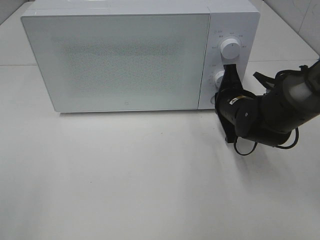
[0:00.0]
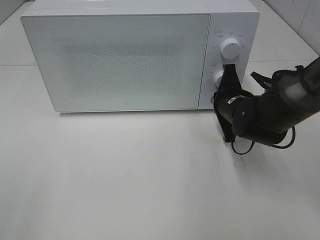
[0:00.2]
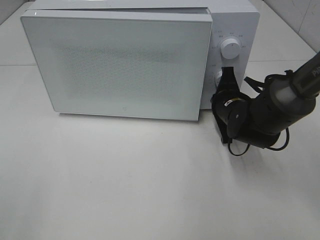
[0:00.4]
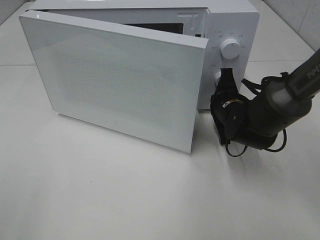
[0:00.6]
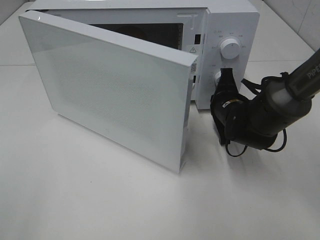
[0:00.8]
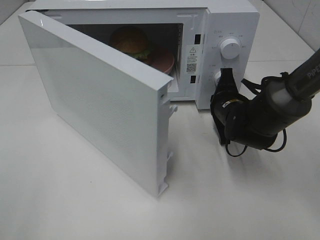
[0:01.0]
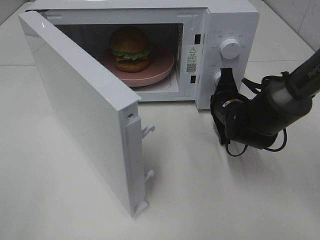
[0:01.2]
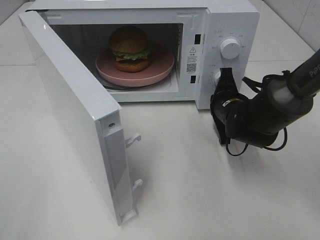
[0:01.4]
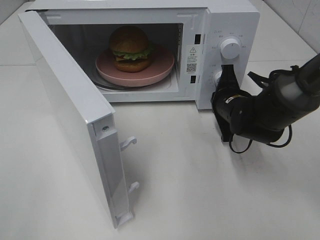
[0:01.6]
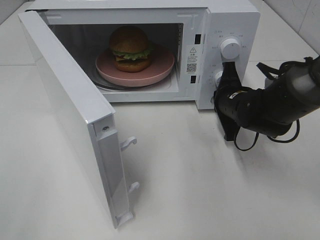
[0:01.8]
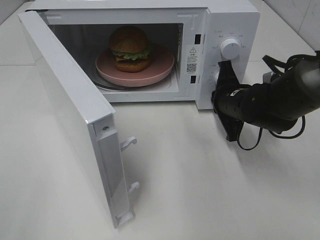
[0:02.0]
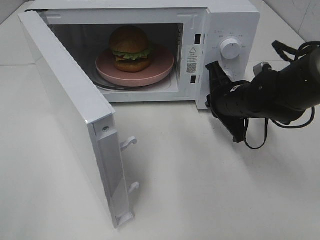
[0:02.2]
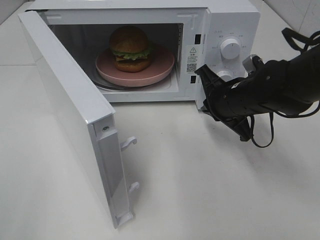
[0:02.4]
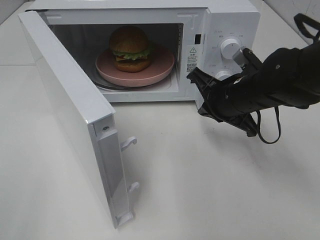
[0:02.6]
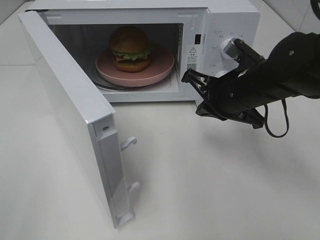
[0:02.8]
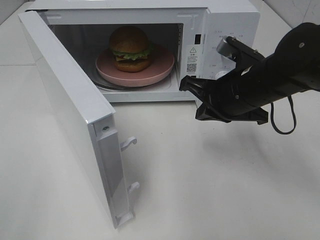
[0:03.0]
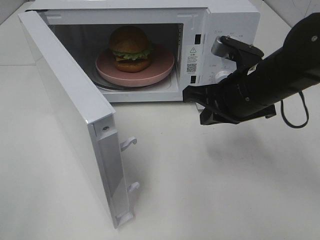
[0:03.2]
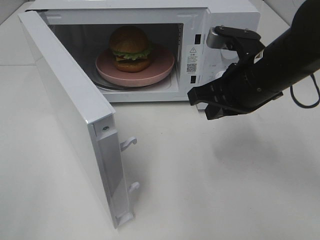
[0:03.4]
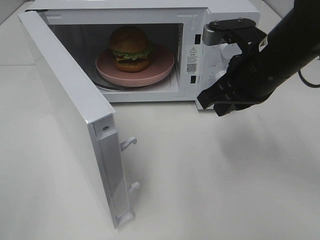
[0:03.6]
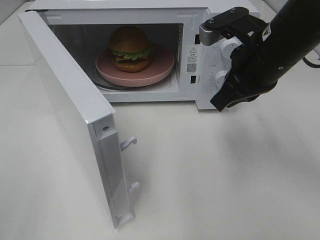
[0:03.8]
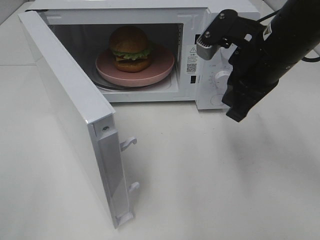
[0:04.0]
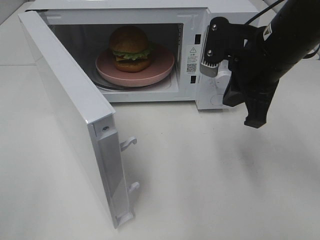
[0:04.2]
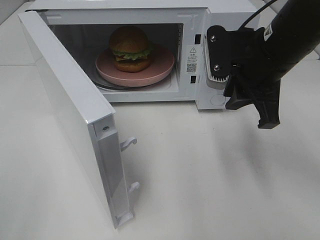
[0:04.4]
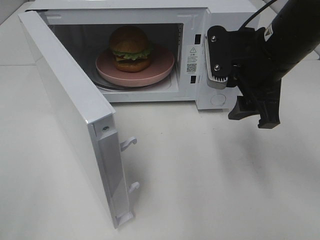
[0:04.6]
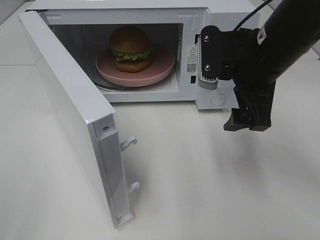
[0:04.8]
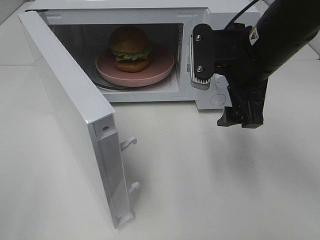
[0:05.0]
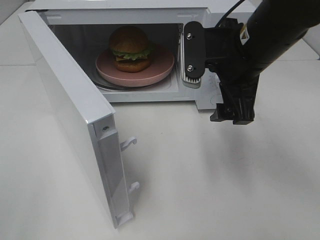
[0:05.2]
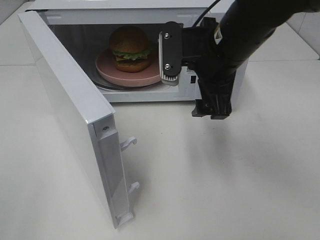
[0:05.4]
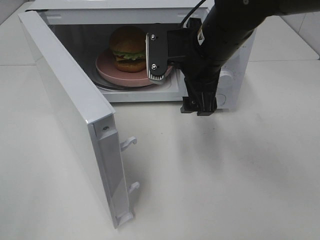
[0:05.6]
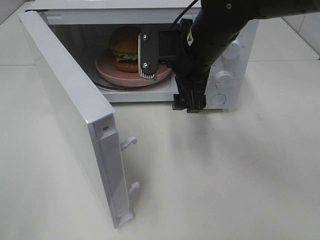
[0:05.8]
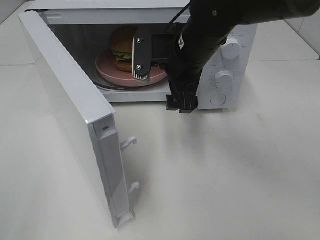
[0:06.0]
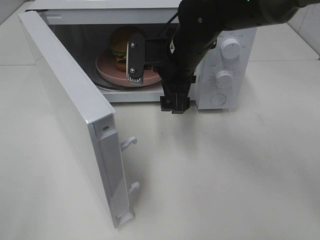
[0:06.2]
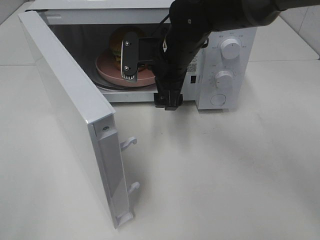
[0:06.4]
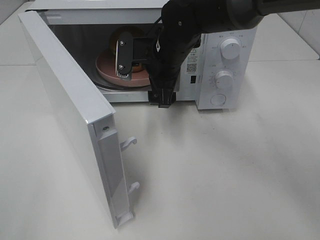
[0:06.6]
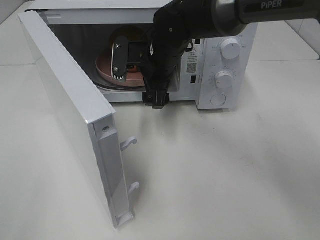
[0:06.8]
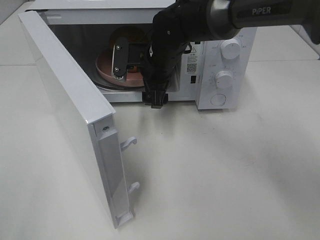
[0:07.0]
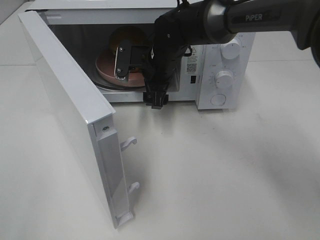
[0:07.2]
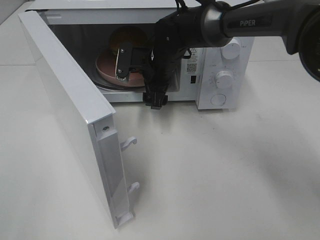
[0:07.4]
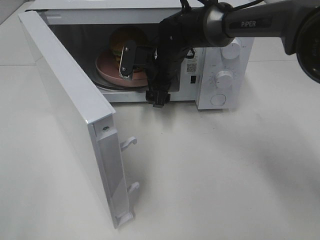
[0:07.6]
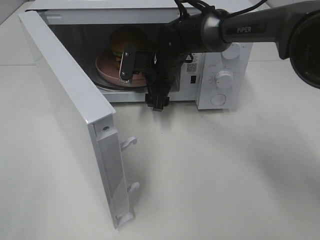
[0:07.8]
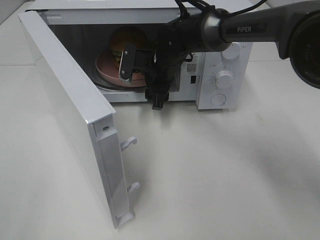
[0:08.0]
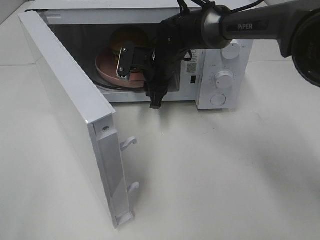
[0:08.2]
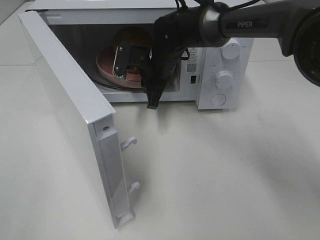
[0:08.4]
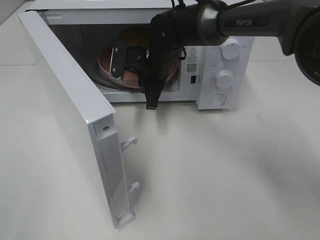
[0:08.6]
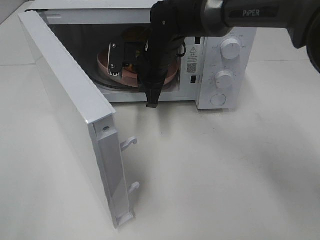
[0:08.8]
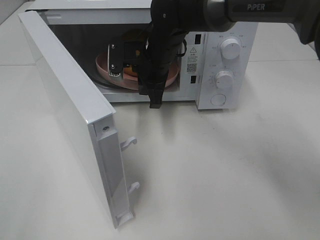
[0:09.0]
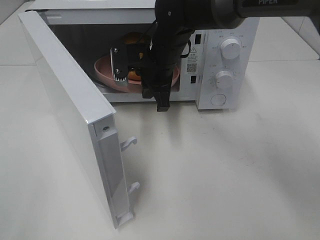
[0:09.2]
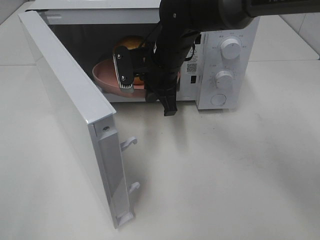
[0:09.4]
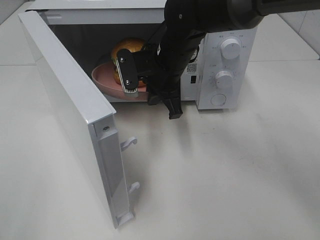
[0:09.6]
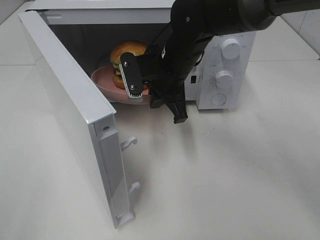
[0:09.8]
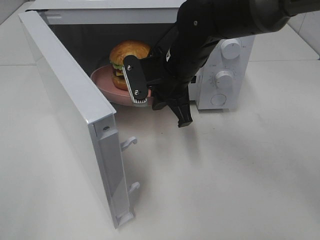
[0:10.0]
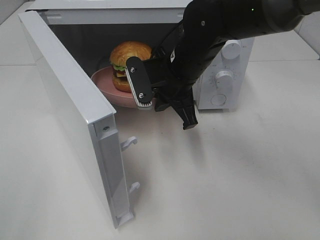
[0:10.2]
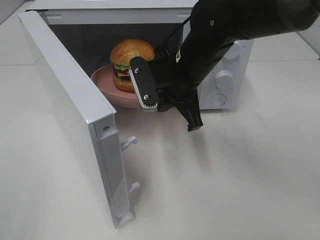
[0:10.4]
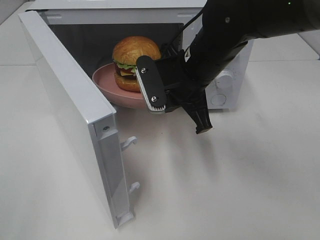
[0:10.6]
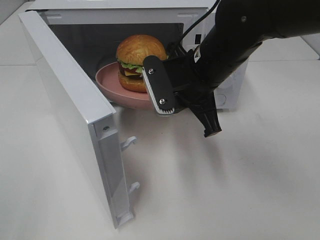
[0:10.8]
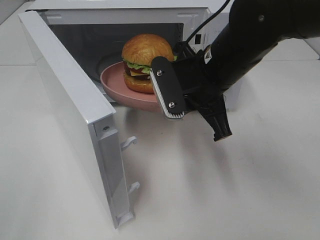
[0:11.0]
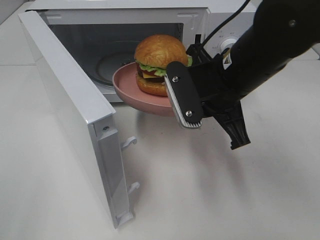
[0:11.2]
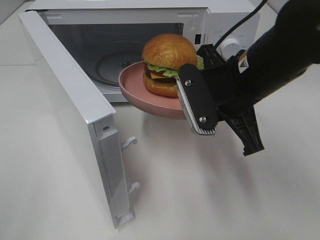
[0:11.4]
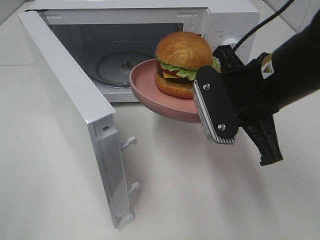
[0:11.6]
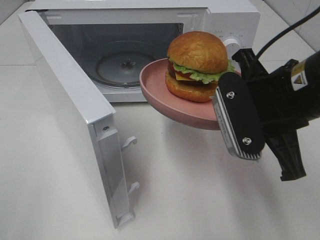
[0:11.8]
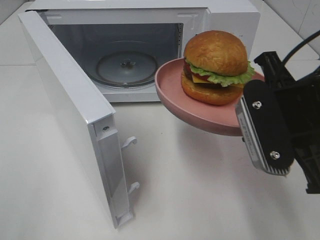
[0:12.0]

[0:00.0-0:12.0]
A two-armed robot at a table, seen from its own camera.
Task of the whole recording: Heat the burger.
Step, 0:00.0 to 0:02.0: Right hand: press the switch.
Step, 0:02.2 to 0:08.4: Right hand: grab the plate with the hamburger.
0:01.6 to 0:03.0: The right gripper goes some 10 cm upward and backward.
0:03.0 to 0:04.4: The right gripper moves upward, about 5 cm, and opens its fingers.
0:04.4 to 0:06.0: The right gripper travels to the left and forward by roughly 10 cm, and opens its fingers.
0:06.0 to 0:07.6: The right gripper moves forward and downward, about 10 cm.
0:07.6 to 0:09.0: The right gripper closes up.
0:09.0 to 0:10.4: The right gripper is displaced backward by about 10 cm.
0:10.4 to 0:12.0: The right gripper moves backward and to the right, some 20 cm.

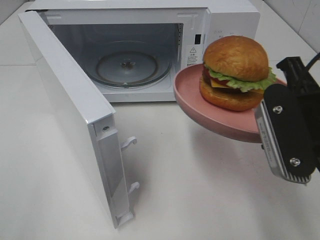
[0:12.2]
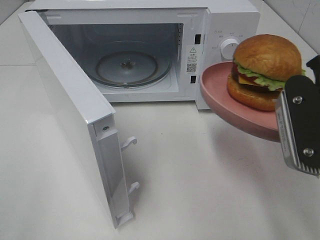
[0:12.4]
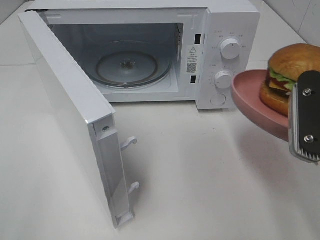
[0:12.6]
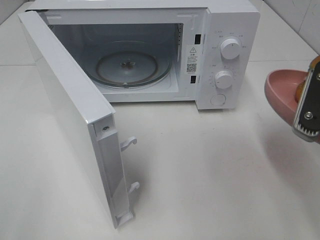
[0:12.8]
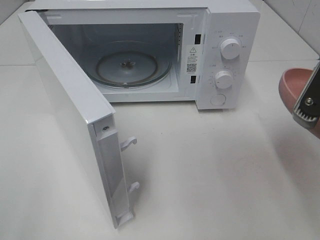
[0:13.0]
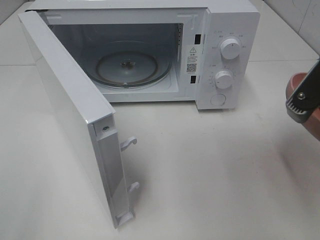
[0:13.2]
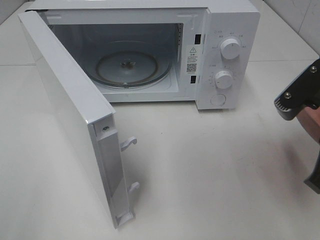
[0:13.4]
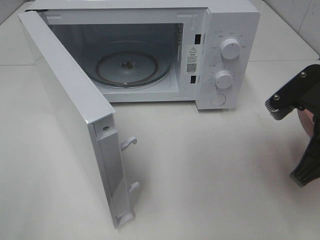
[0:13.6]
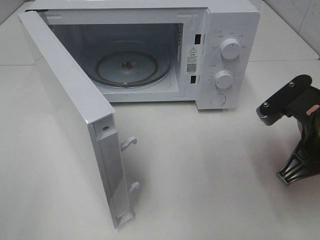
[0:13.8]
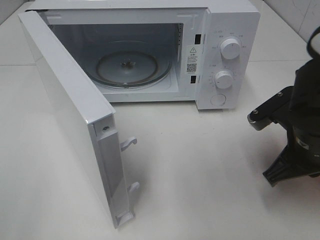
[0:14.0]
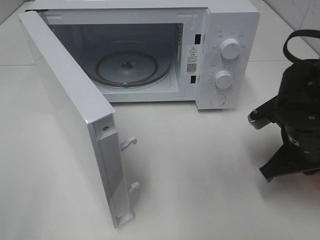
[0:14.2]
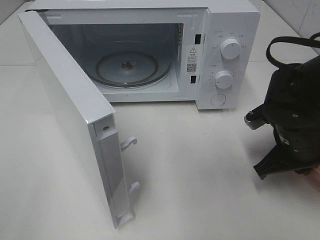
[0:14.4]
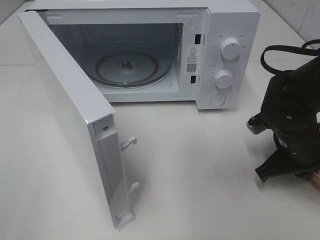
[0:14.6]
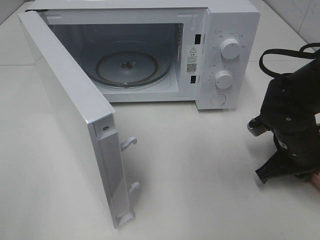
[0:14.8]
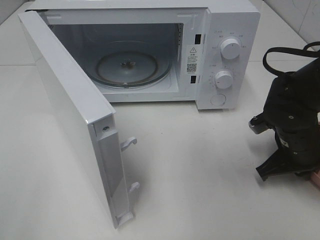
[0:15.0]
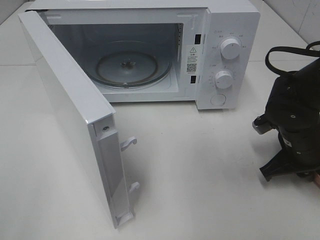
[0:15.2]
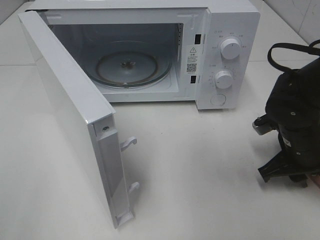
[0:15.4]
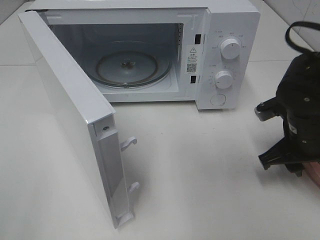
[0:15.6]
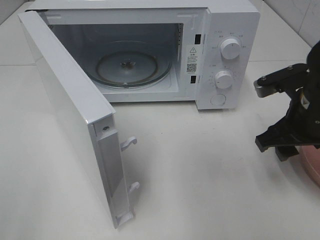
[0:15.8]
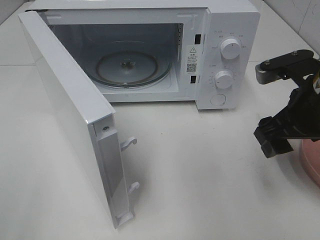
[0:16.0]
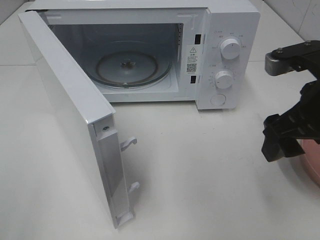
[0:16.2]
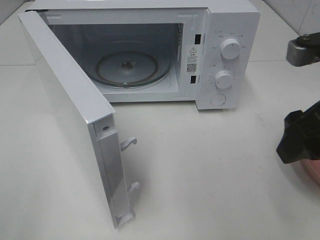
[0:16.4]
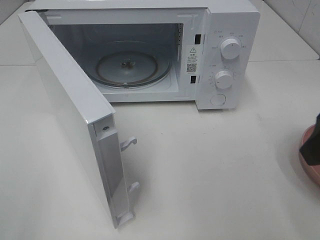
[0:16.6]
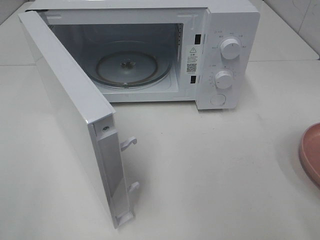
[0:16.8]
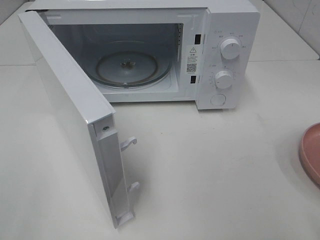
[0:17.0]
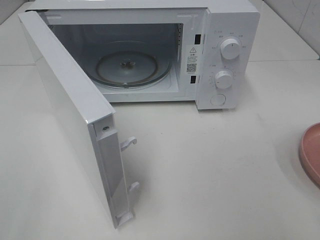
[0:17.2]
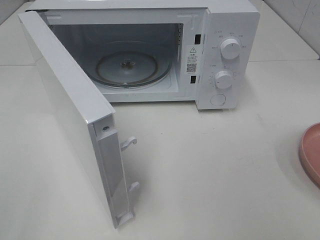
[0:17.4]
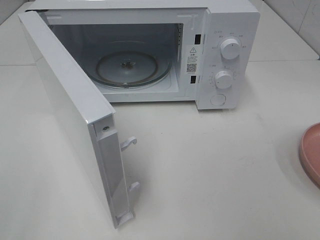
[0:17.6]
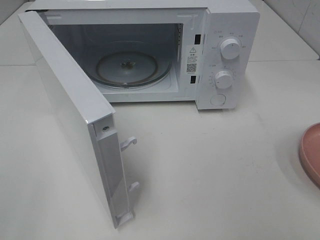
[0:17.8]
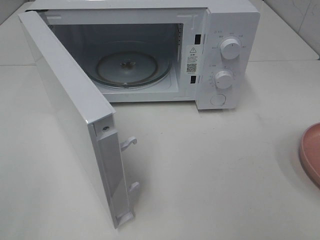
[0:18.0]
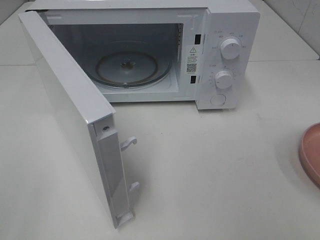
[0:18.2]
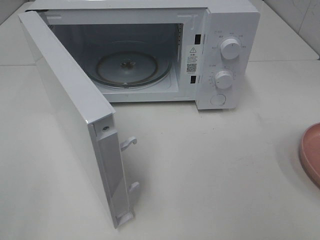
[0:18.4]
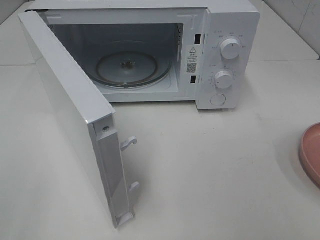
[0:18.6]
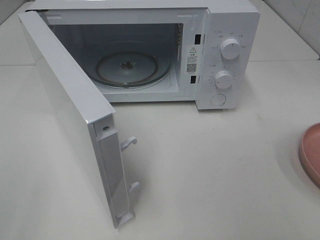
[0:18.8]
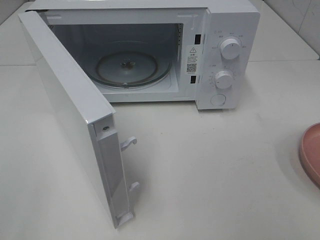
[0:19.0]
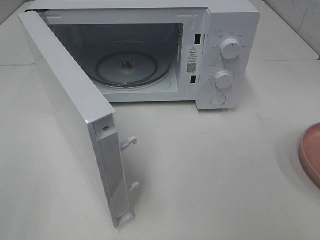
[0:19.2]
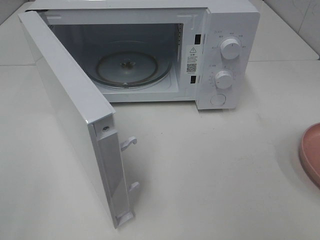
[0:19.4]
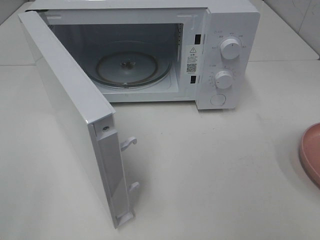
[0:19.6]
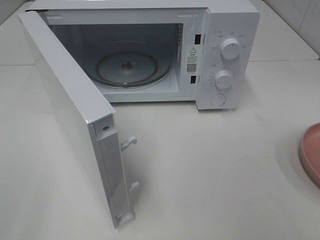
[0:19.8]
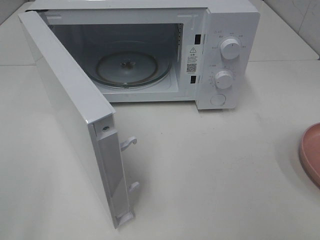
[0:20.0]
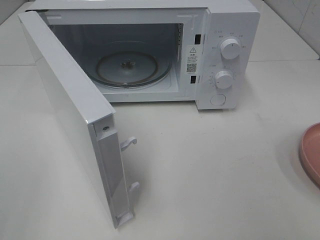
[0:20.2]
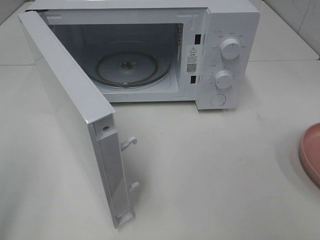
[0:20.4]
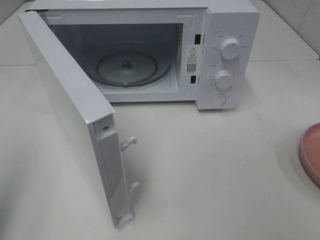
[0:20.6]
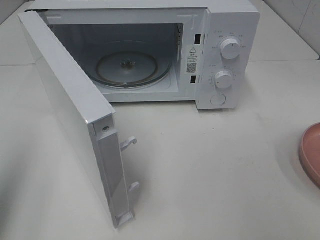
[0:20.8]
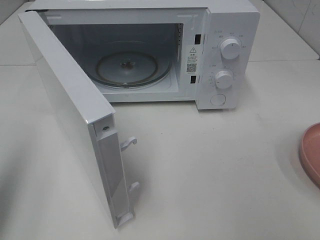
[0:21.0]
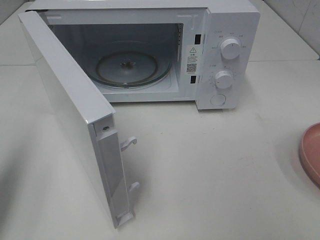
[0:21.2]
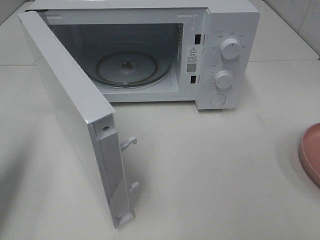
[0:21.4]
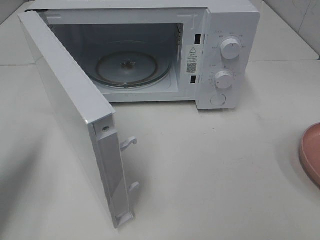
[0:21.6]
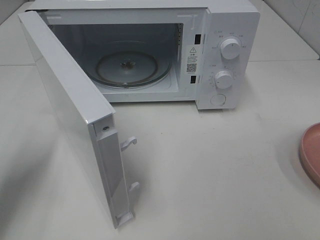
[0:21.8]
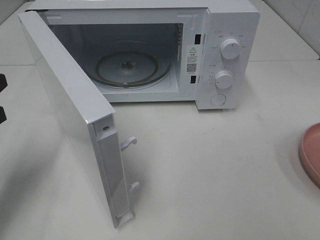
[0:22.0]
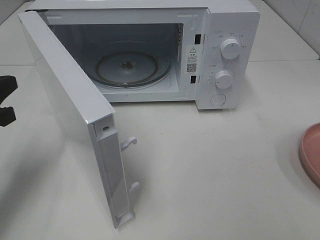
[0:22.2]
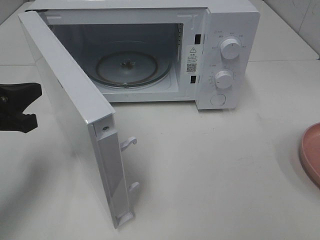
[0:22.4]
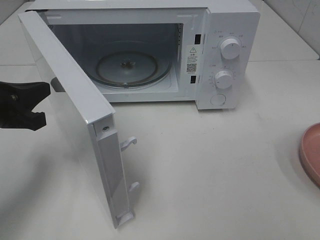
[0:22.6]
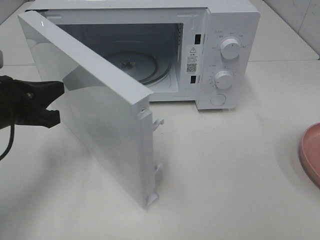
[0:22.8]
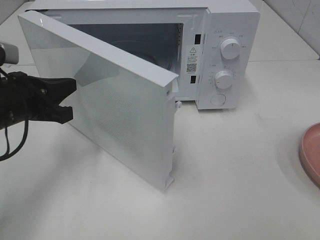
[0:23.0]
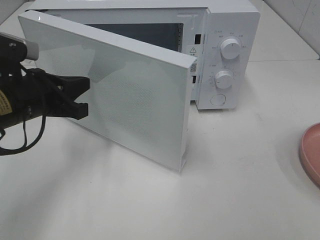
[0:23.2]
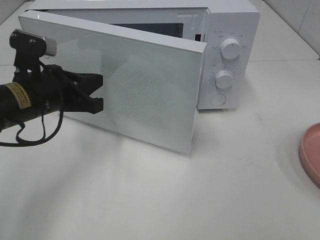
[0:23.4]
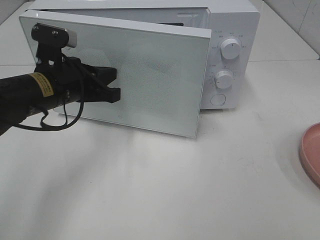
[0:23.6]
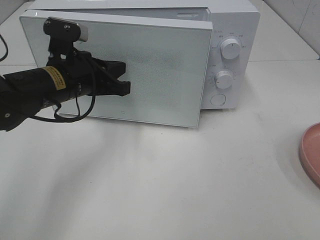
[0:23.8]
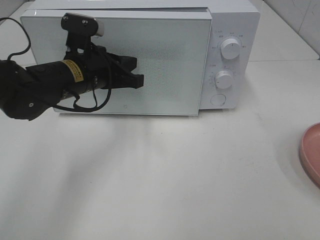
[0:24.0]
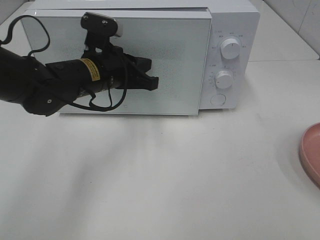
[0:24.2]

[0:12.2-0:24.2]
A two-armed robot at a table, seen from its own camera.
Task of the whole recording: Heat the burger.
Step, 0:12.2 to 0:15.2: Right hand: place the plate on the table.
0:12.2 to 0:13.8: The right gripper heads downward, covering about 5 cm.
0:13.8 to 0:15.2: The right gripper shifts about 10 cm downward and forward.
0:15.2 to 0:16.6: The right gripper is displaced upward and backward by some 25 cm, and opens.
0:16.6 to 0:18.2: The right gripper travels backward by roughly 15 cm.
0:18.2 to 0:19.8: Both grippers stay put.
0:19.8 to 0:21.2: The left gripper is displaced forward by approximately 15 cm, and closes its fingers.
0:21.2 to 0:22.6: The left gripper moves downward, forward and to the right, about 15 cm.
0:22.6 to 0:24.2: The left gripper moves to the right and forward, roughly 20 cm.
